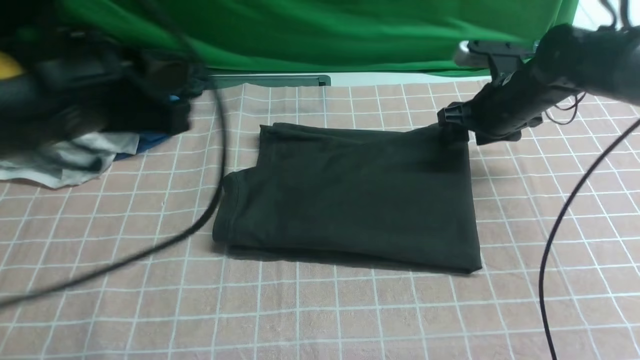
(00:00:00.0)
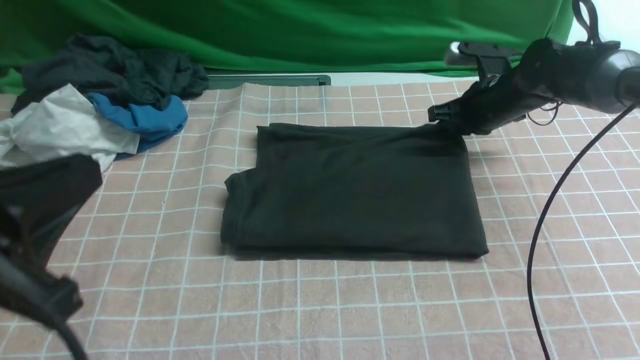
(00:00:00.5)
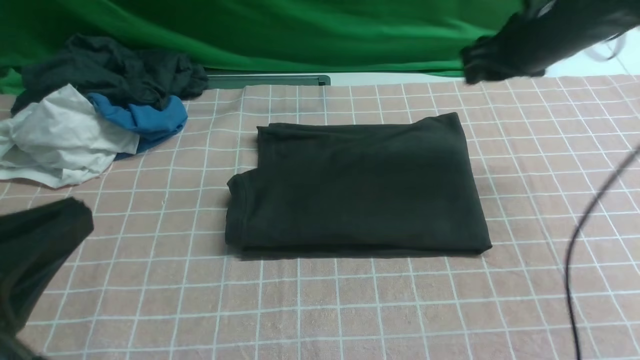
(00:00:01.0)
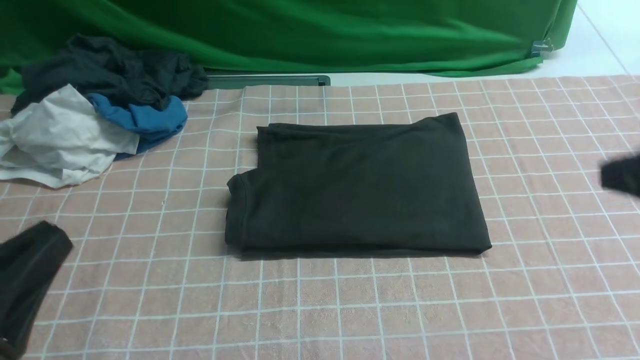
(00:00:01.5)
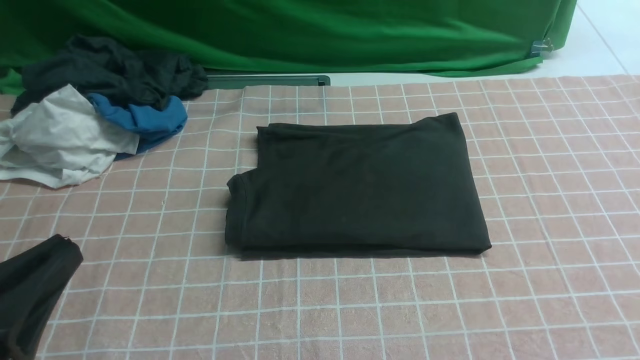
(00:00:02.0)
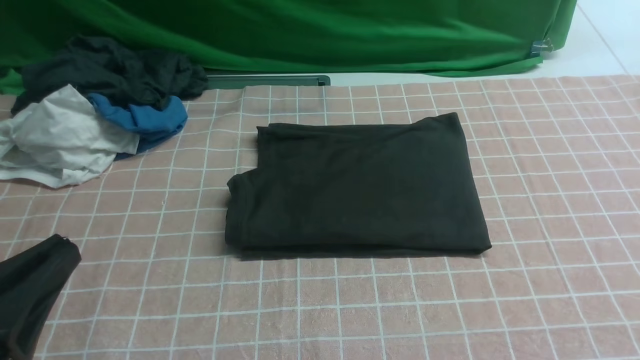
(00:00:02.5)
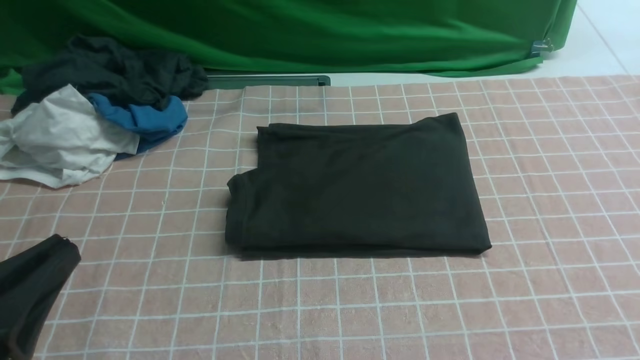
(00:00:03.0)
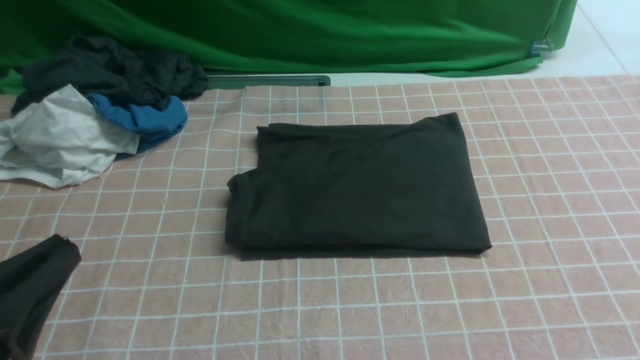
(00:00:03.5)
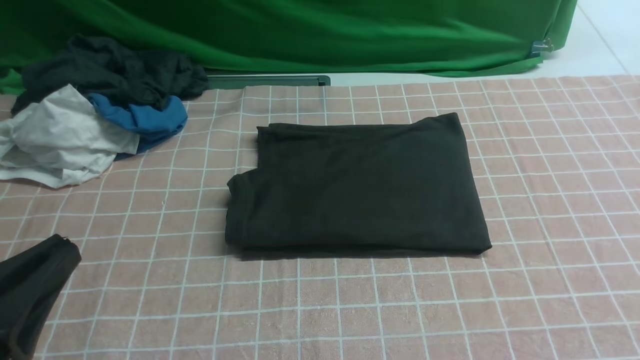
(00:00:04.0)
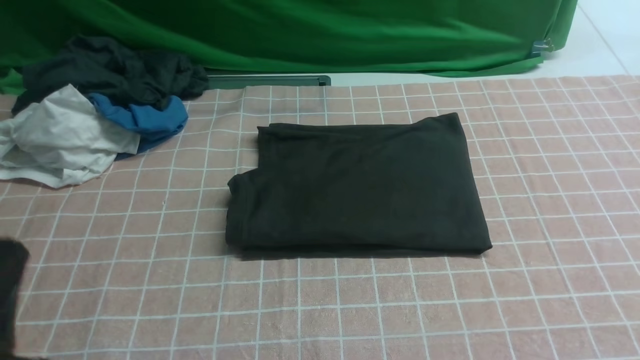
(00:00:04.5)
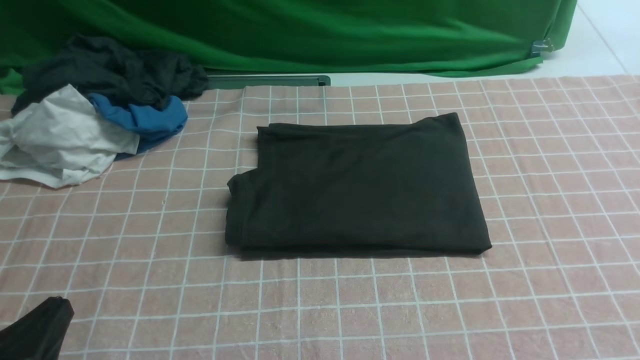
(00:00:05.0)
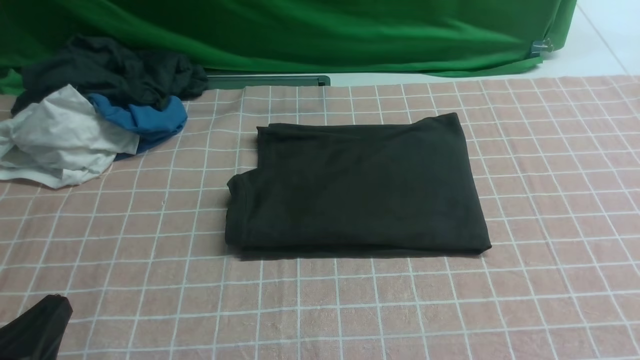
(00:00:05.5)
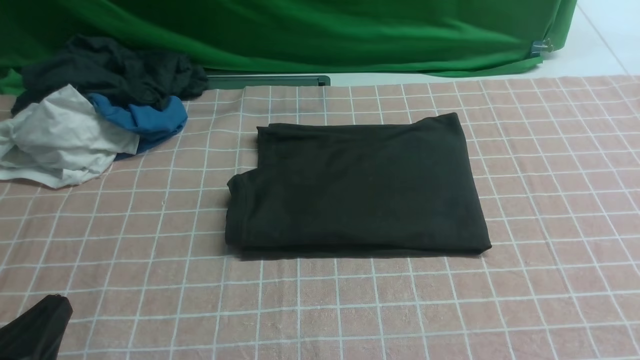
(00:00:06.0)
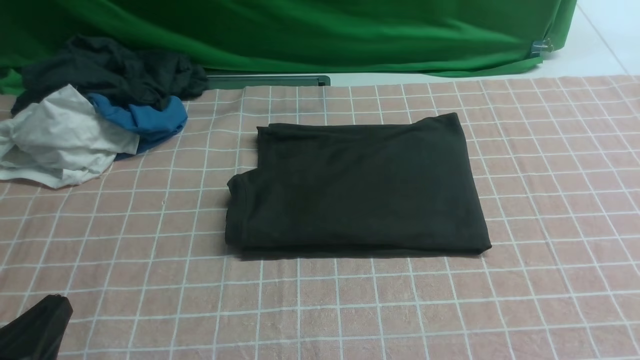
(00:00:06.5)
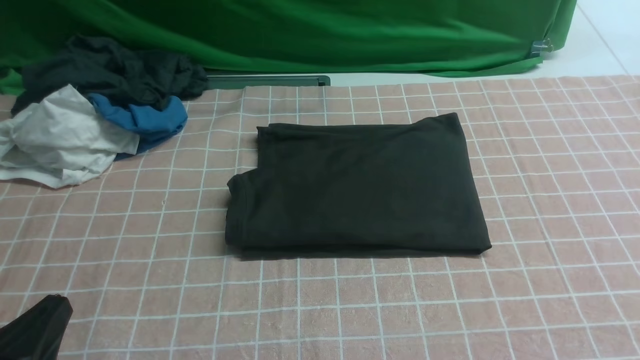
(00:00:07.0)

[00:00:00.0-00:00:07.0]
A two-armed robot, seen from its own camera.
00:00:00.0 to 00:00:02.0: The left gripper is displaced backward and downward by about 15 cm. Meanwhile the right gripper heads backward, covering some 35 cm, and closes.
00:00:03.5 to 00:00:05.0: The left gripper heads downward, covering some 10 cm.
00:00:05.0 to 00:00:07.0: The two grippers keep their place.
